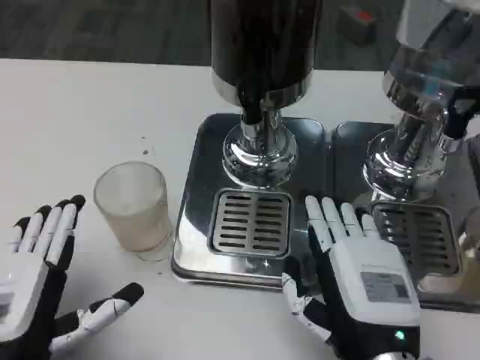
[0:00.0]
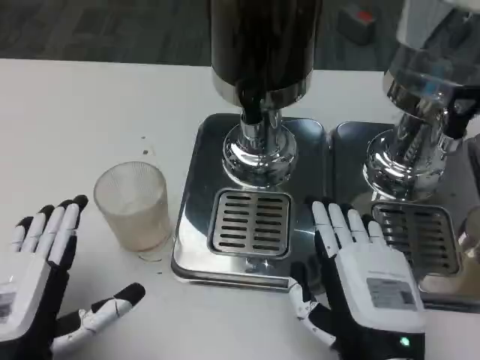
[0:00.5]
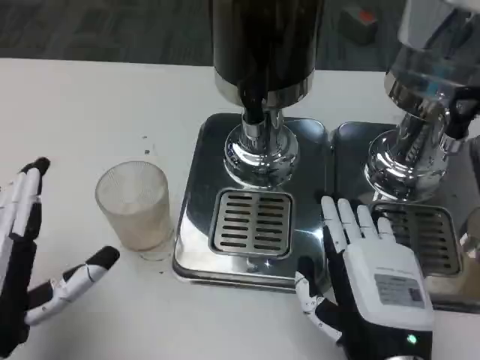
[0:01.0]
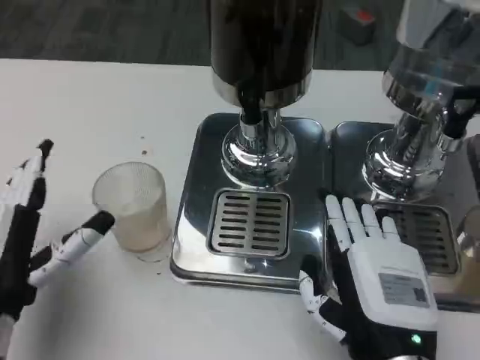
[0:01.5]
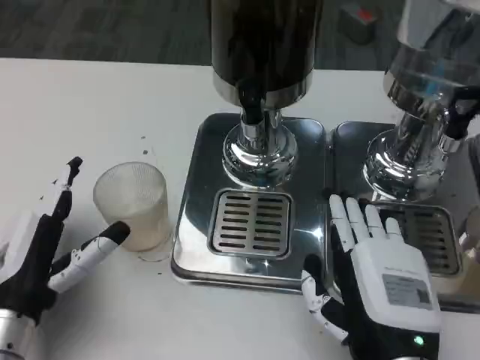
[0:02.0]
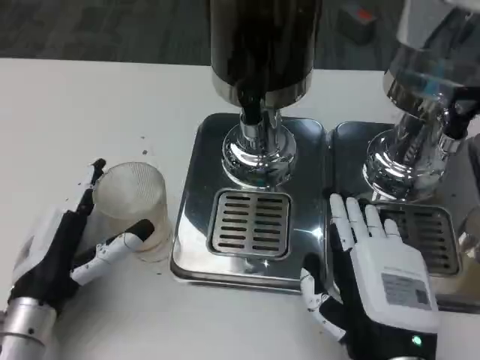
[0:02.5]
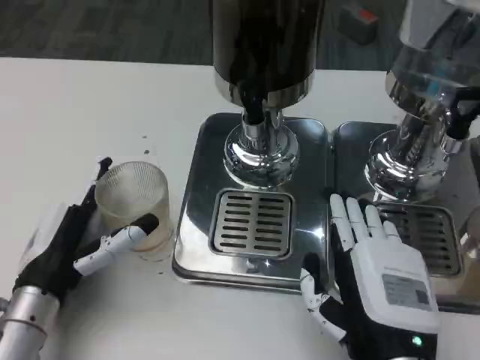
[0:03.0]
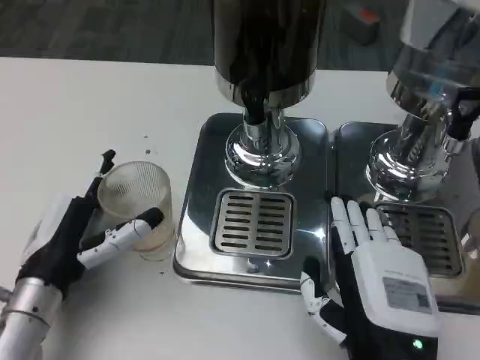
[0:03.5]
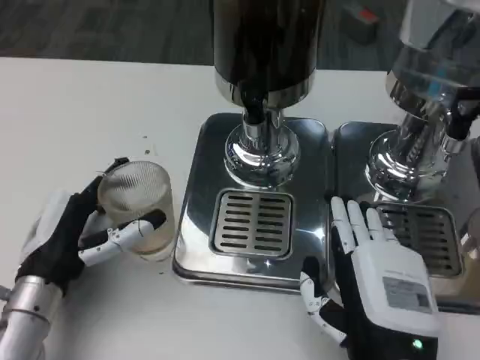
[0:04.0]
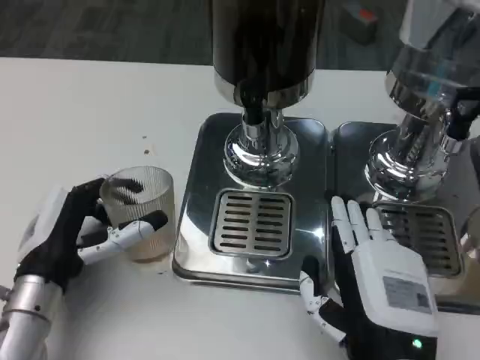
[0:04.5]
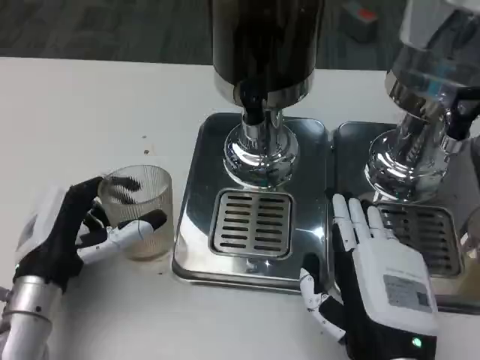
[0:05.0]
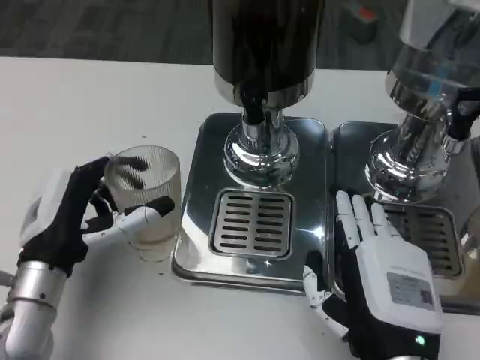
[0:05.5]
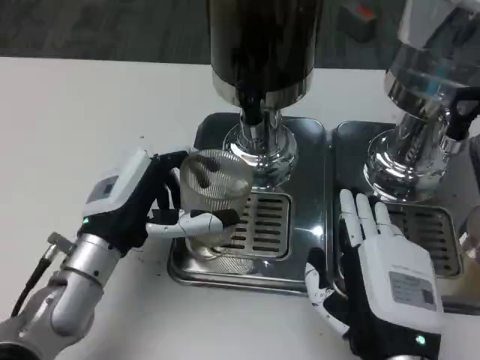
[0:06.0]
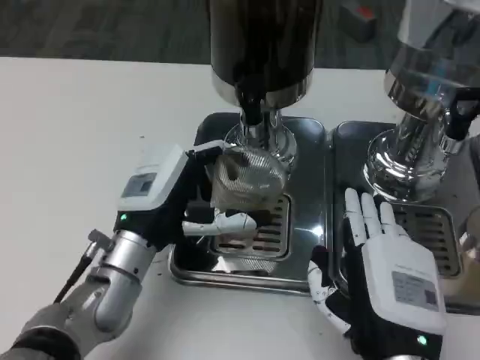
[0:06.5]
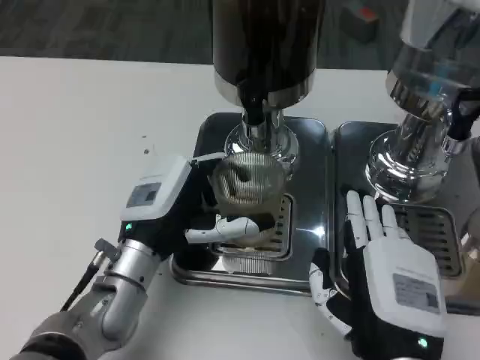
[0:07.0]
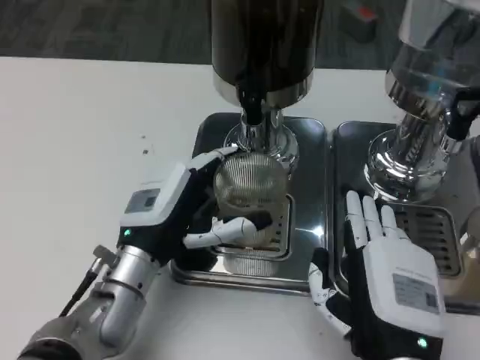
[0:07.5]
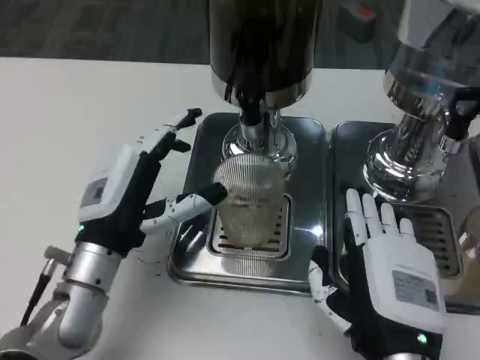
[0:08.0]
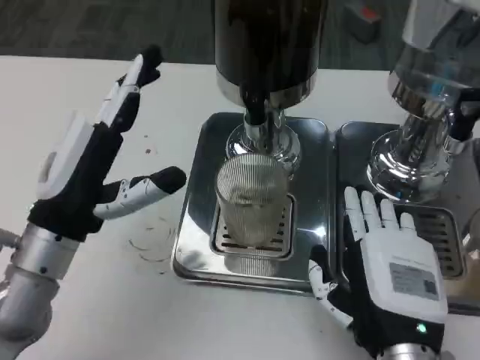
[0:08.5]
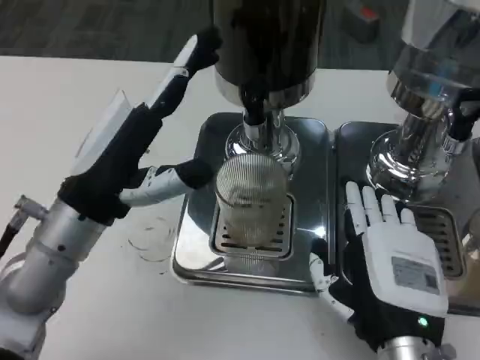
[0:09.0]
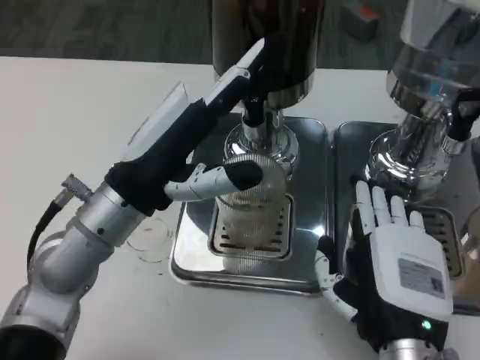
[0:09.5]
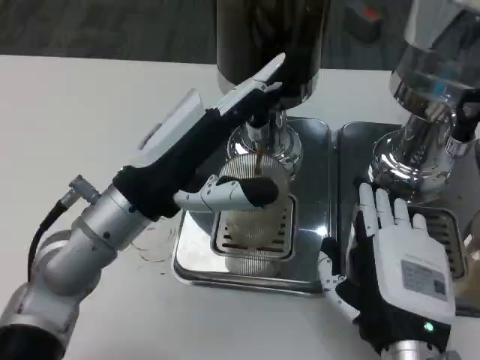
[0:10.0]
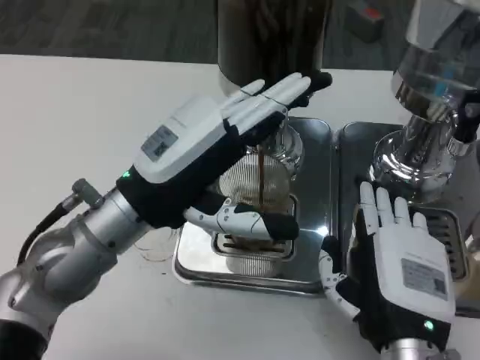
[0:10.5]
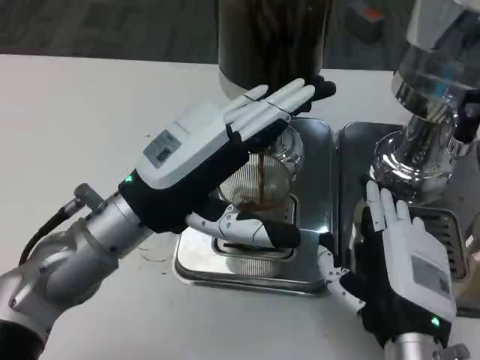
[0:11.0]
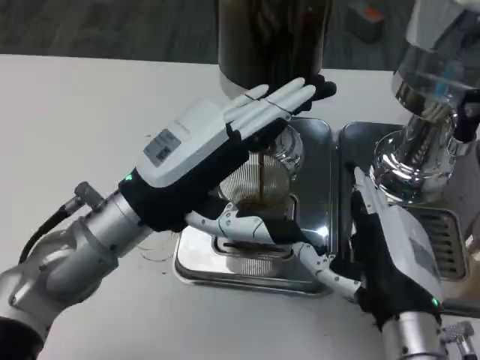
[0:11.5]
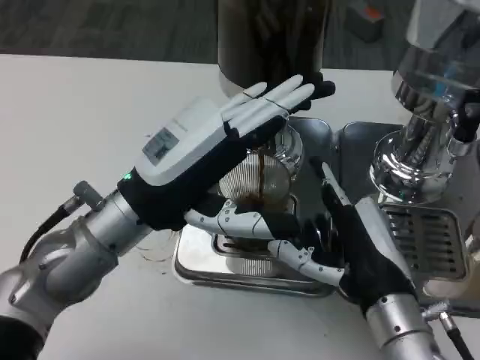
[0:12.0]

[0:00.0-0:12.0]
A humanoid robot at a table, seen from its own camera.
Task of the whole recording: Grasp the cup under the faucet to collect the drink, then remove the cup.
0:00.0 to 0:02.0: The left hand moves forward, roughly 5 cm.
0:02.0 to 0:04.0: The hands move only a little.
0:04.0 to 0:06.0: The left hand shifts by roughly 5 cm.
0:06.0 to 0:08.0: The hands move only a little.
0:08.0 to 0:10.0: The left hand moves upward, some 10 cm.

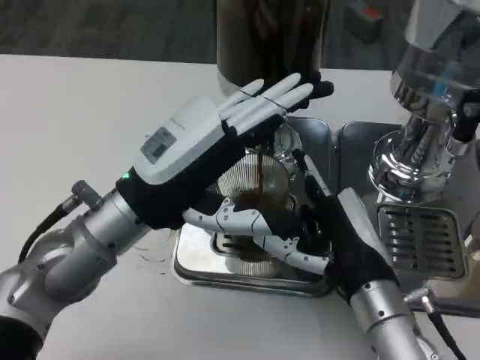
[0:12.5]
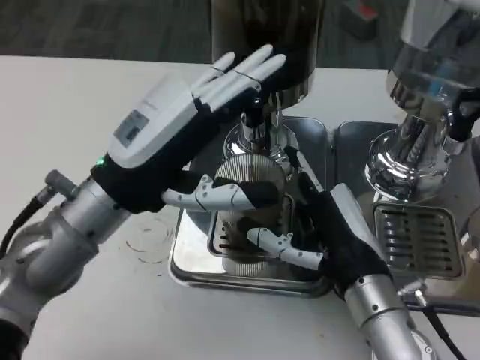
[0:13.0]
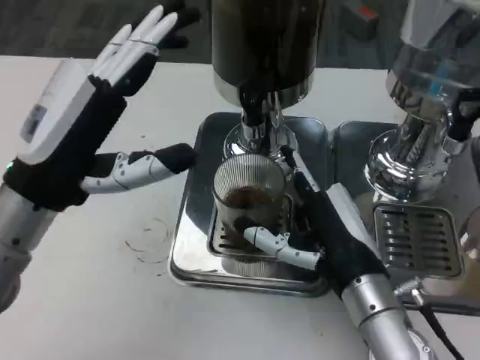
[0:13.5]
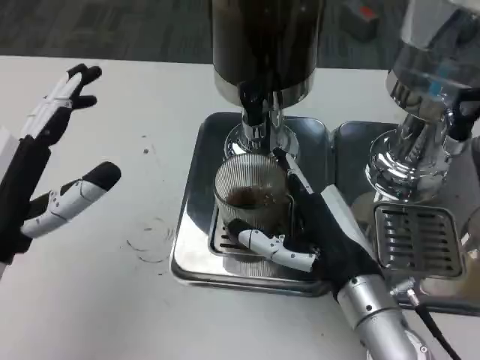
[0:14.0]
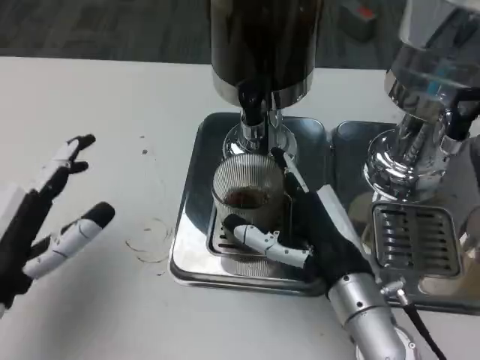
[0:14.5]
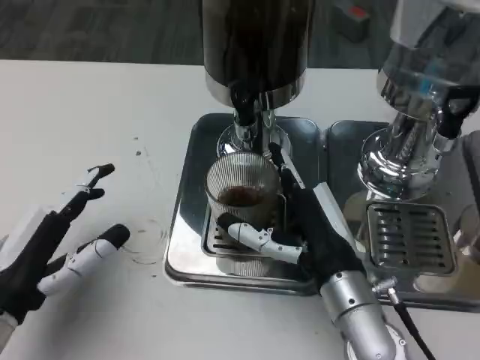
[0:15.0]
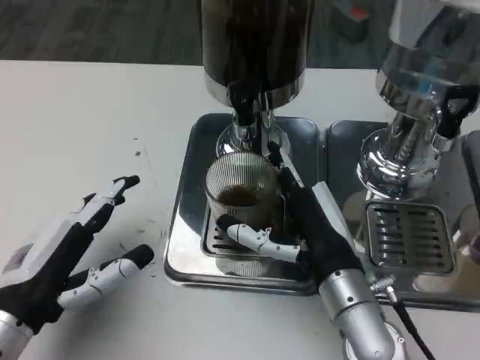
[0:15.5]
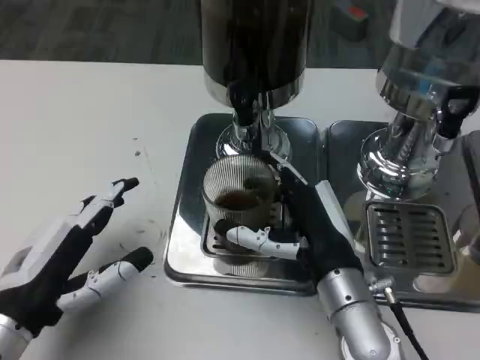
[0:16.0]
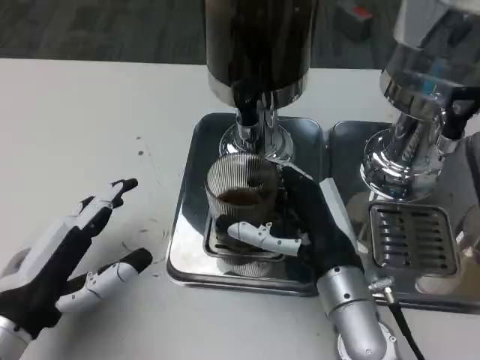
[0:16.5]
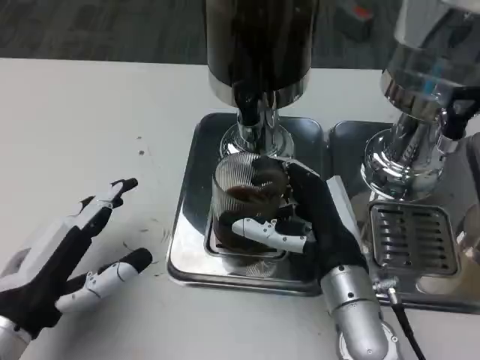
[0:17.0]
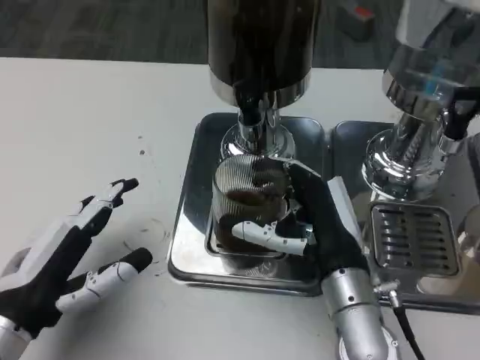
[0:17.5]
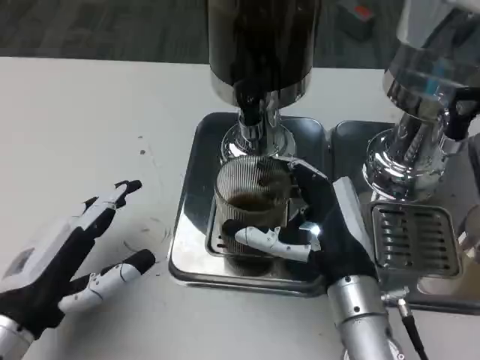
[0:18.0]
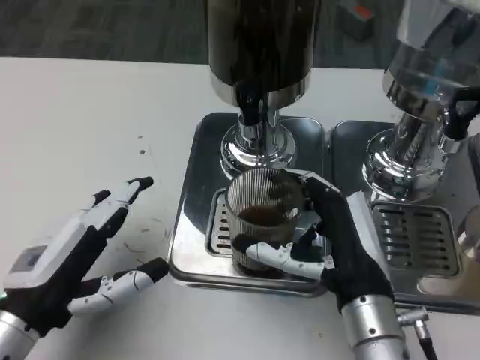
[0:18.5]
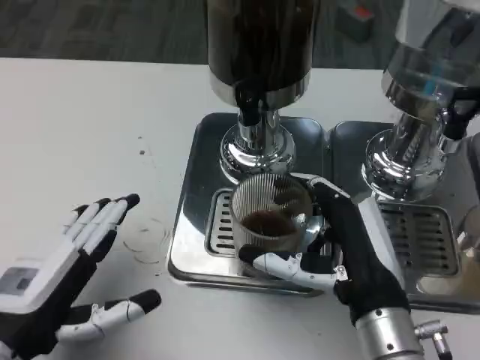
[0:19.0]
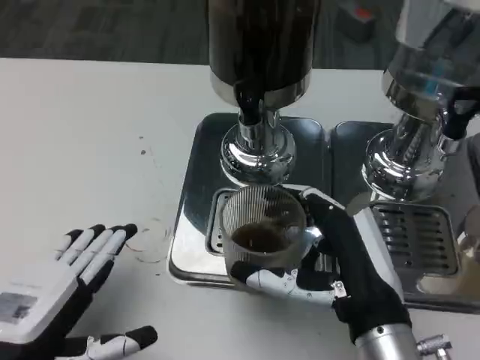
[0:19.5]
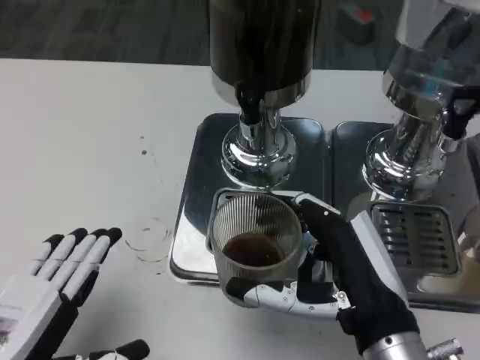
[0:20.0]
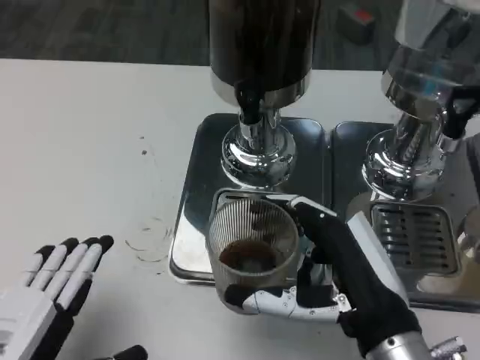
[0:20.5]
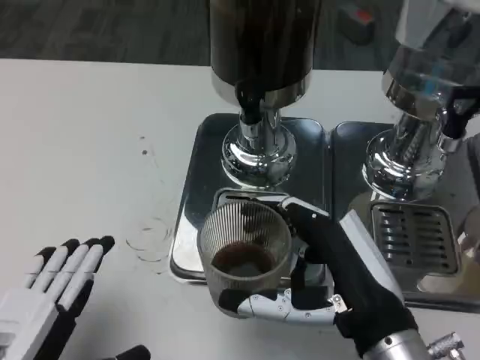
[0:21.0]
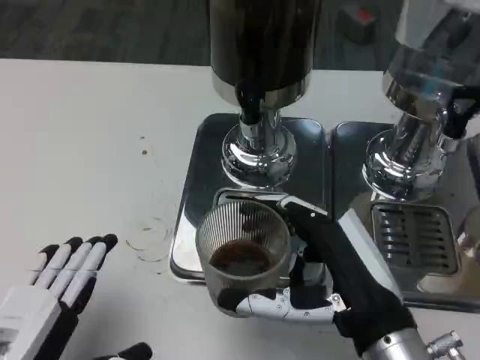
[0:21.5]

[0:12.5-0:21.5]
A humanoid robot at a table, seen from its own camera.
Task of the whole recording: Grasp the cup under the faucet to collect the drink, then remove the cup.
0:12.5 to 0:14.5: The left hand moves to the left, backward and downward, some 15 cm.
0:17.0 to 0:19.5: The right hand moves backward, some 5 cm.

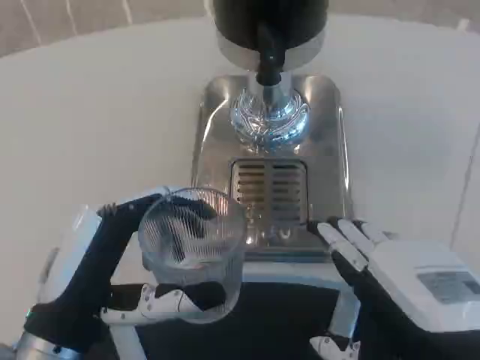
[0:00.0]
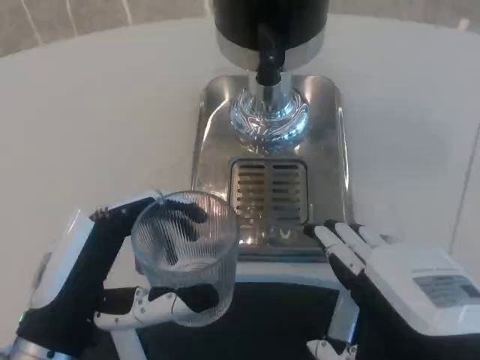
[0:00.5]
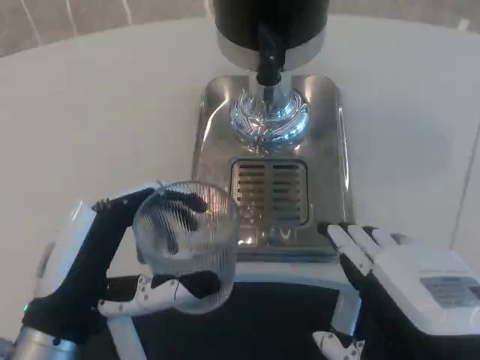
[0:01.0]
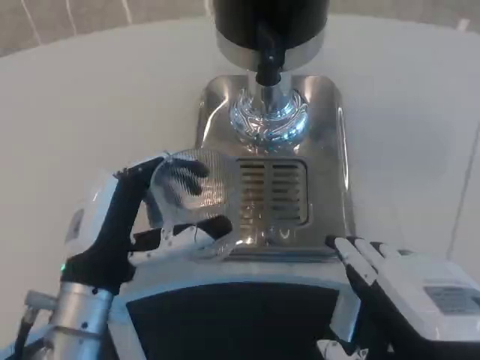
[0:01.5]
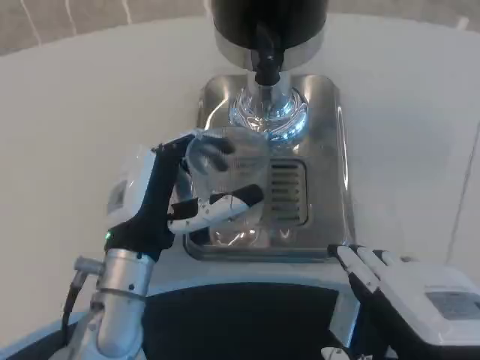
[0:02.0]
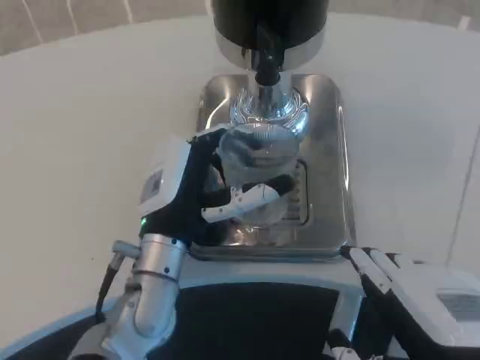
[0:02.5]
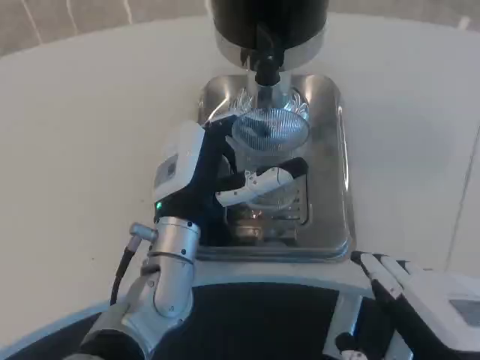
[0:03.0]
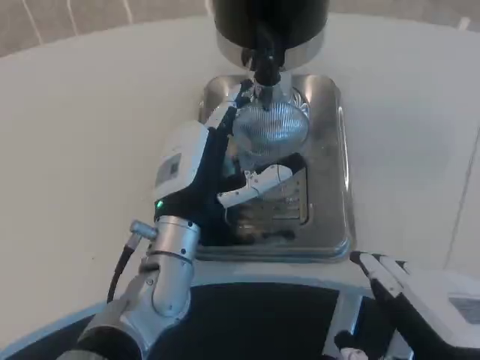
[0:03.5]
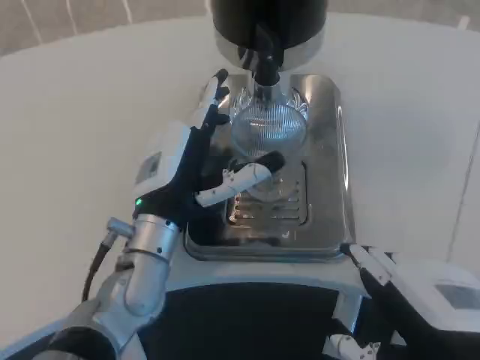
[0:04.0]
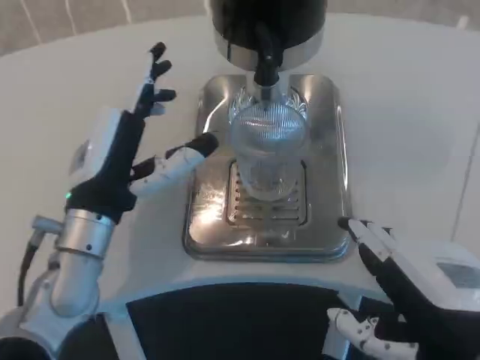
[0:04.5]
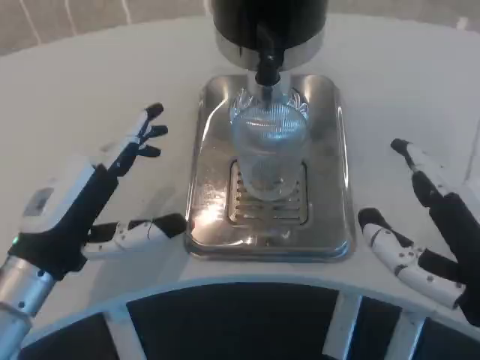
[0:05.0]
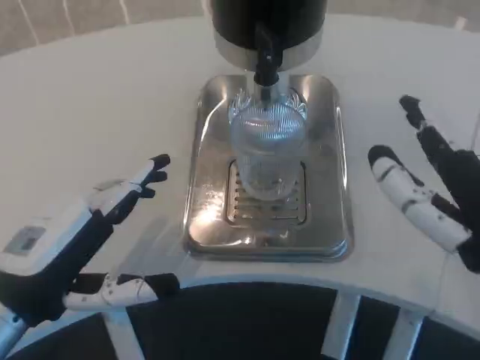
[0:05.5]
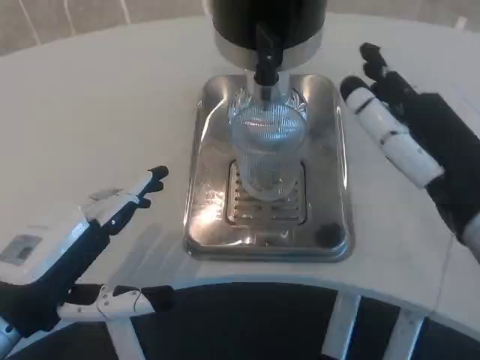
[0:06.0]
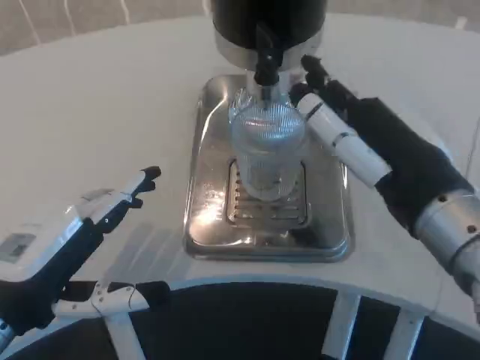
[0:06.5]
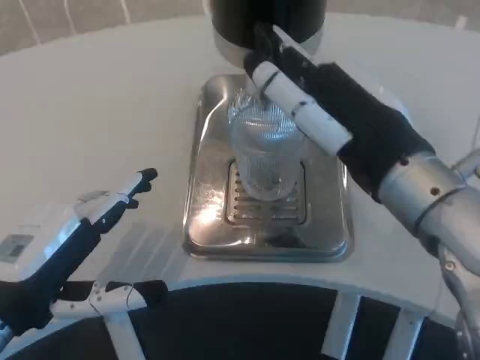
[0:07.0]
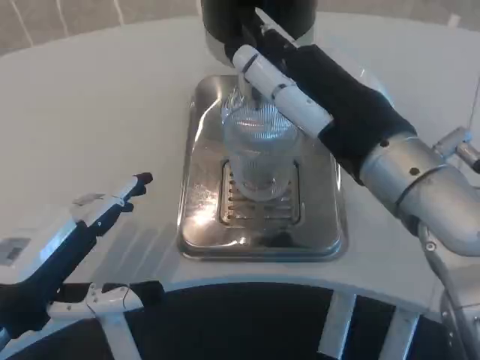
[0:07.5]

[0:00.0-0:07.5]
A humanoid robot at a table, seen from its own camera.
Task of the whole recording: Grasp the cup under the faucet to collect the drink, then remove the cup.
0:00.0 to 0:02.0: The left hand goes roughly 10 cm forward and to the right.
0:02.0 to 0:04.0: The hands make only small movements.
0:04.0 to 0:05.5: The left hand shifts some 15 cm to the left and backward.
0:05.5 to 0:07.5: The right hand is displaced forward, to the left and upward by roughly 10 cm.
